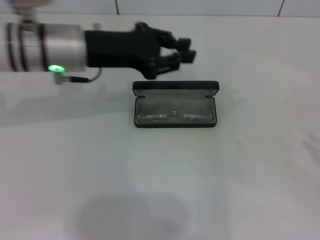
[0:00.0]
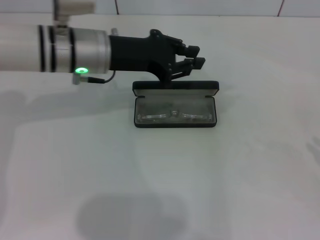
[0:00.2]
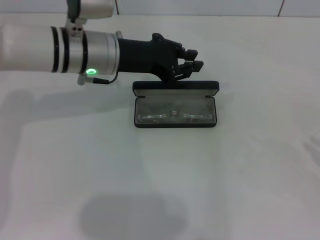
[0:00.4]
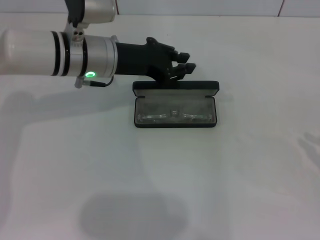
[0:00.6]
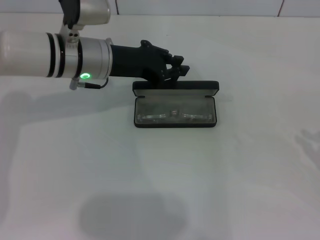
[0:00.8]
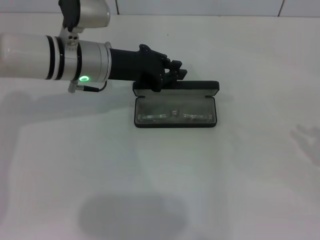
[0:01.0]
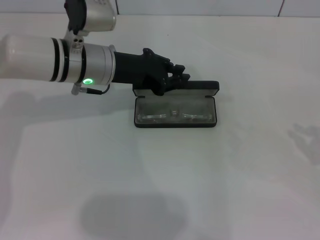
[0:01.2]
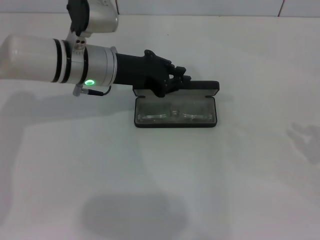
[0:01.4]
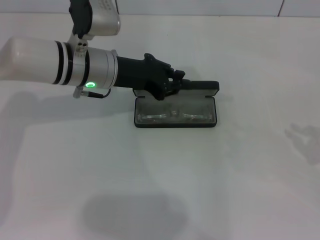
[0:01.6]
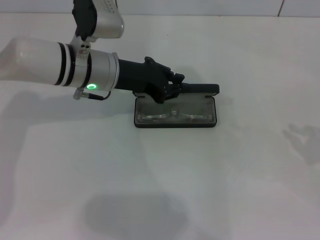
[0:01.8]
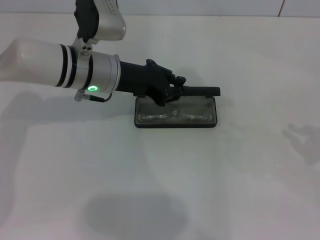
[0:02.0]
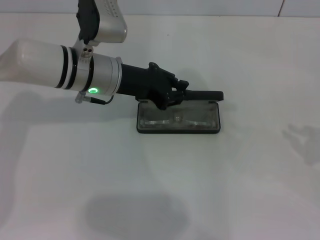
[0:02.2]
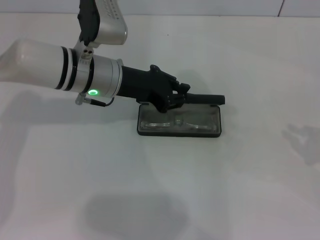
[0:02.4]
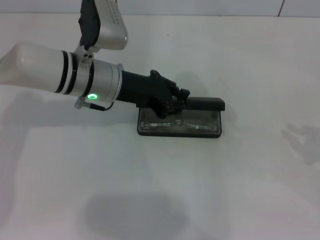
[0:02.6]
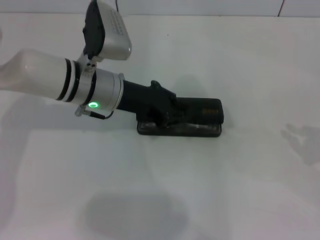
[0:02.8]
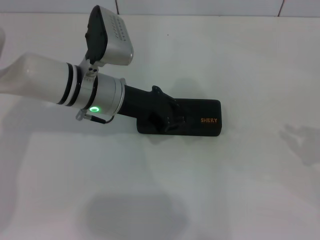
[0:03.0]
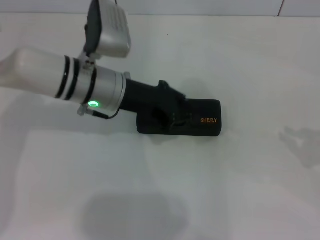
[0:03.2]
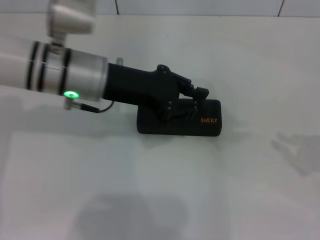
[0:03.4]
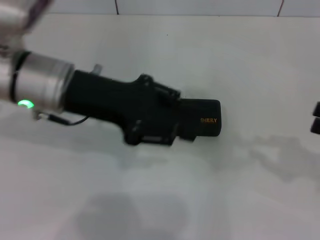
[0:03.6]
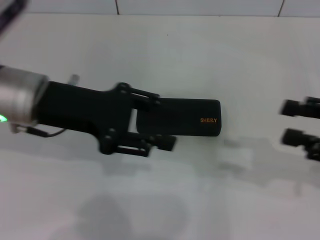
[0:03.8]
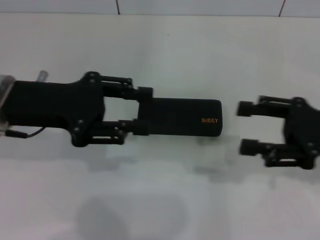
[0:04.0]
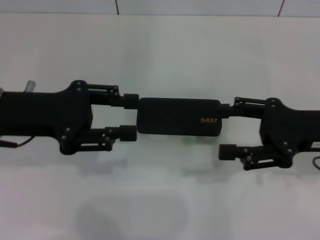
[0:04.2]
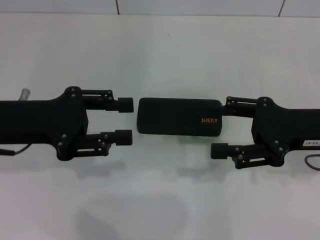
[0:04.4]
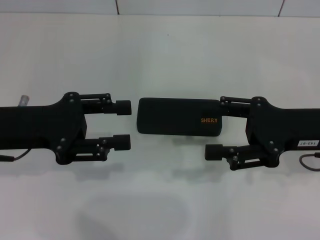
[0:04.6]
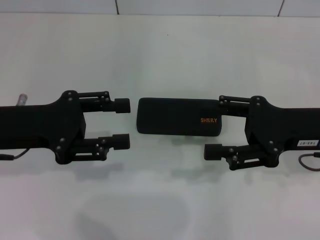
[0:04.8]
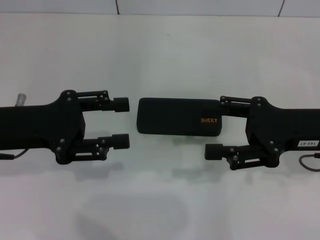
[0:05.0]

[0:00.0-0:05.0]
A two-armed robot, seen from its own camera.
Step, 0:00.0 to 0:03.0: Close the glasses case with your left hand.
0:00.0 to 0:01.6: The left gripper ends up roughly 5 cm from where it was.
0:01.6 to 0:03.4: The left gripper moves some 5 cm.
0:03.4 to 0:05.0: The right gripper heads to the left, covering roughly 15 cm, and opens. The left gripper moves to the left and backward, about 15 cm, and opens its fingers.

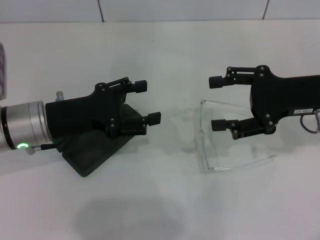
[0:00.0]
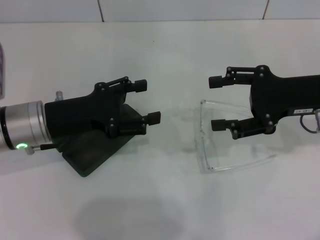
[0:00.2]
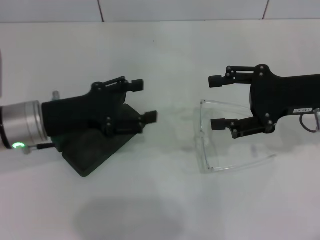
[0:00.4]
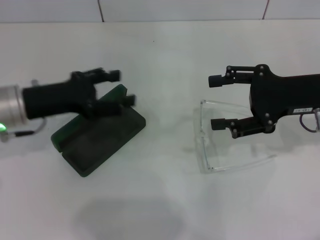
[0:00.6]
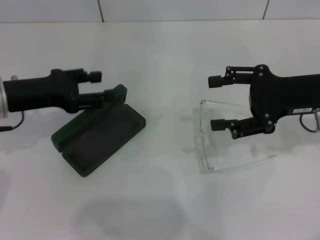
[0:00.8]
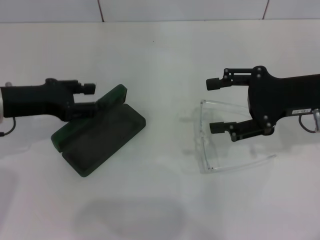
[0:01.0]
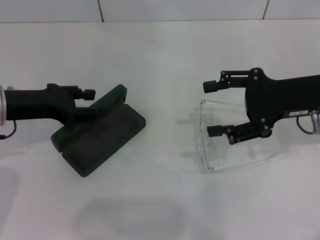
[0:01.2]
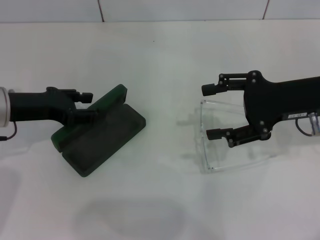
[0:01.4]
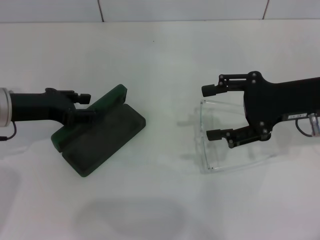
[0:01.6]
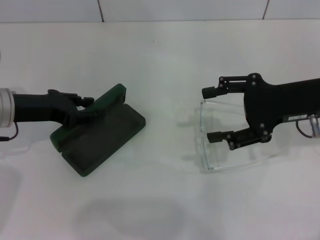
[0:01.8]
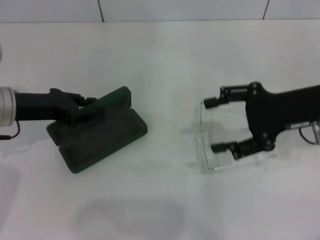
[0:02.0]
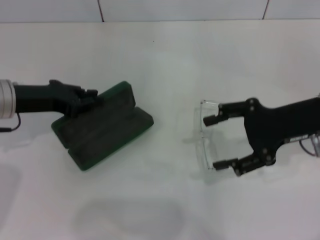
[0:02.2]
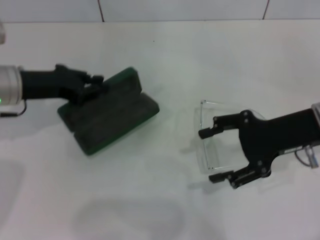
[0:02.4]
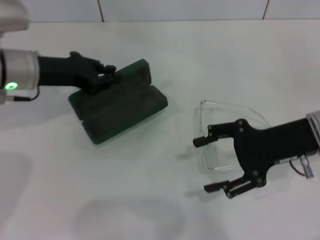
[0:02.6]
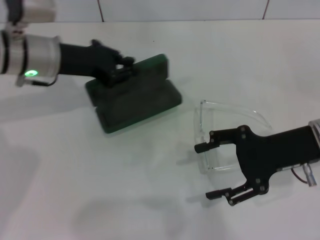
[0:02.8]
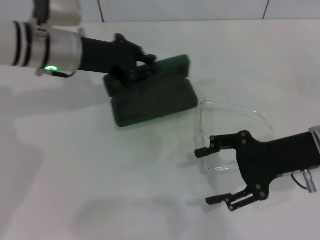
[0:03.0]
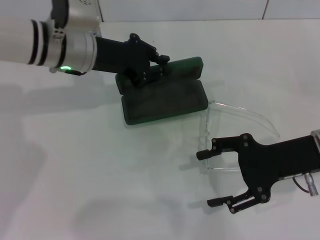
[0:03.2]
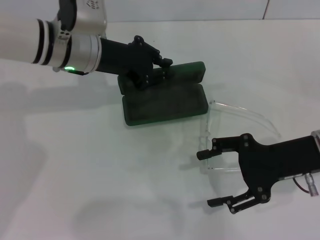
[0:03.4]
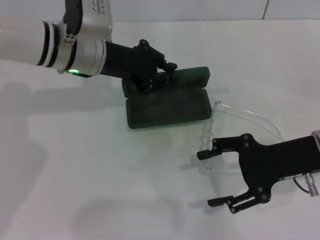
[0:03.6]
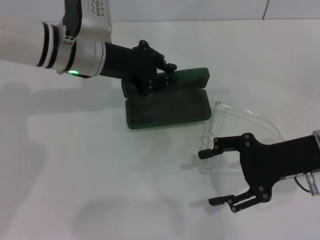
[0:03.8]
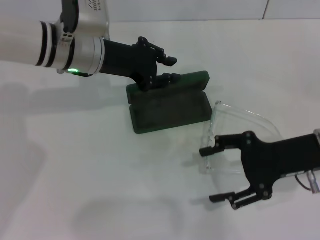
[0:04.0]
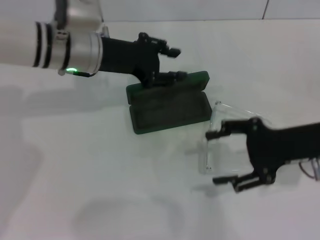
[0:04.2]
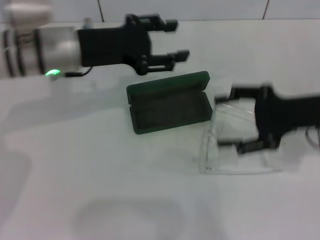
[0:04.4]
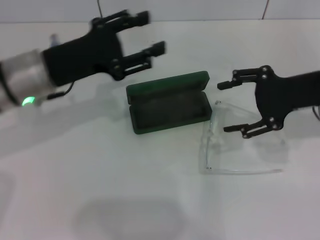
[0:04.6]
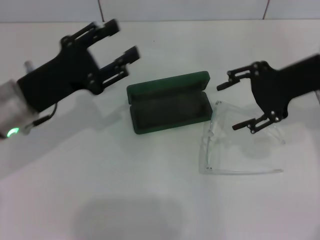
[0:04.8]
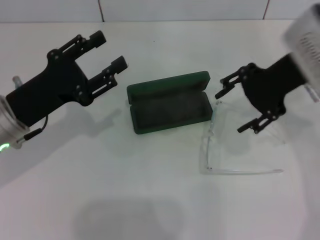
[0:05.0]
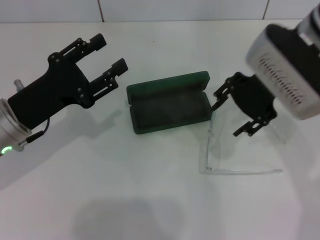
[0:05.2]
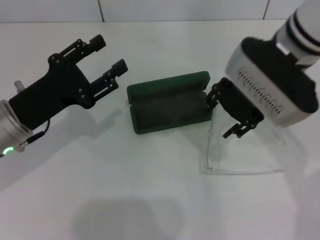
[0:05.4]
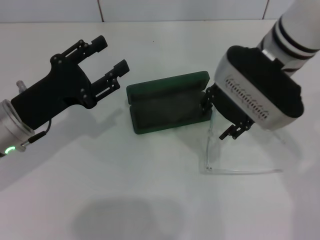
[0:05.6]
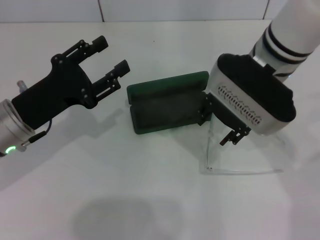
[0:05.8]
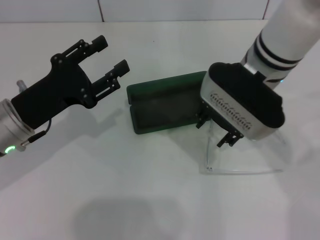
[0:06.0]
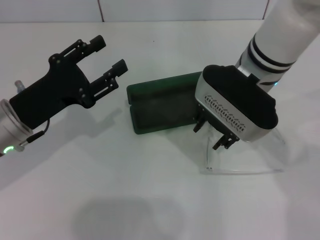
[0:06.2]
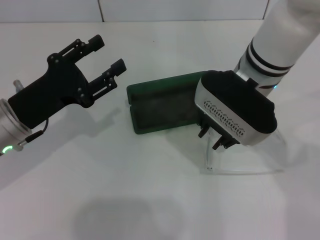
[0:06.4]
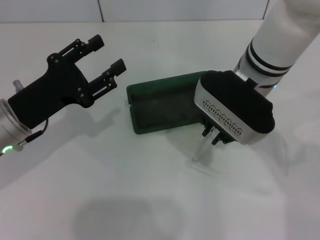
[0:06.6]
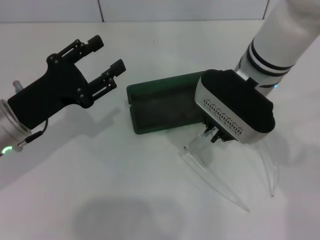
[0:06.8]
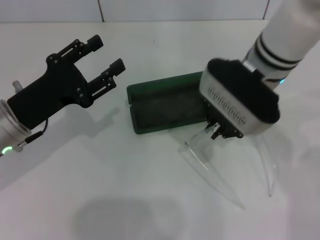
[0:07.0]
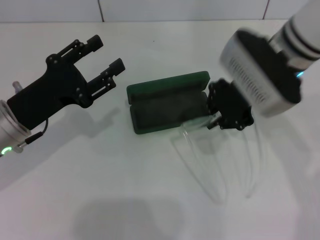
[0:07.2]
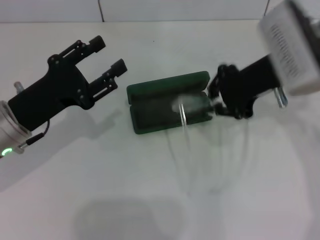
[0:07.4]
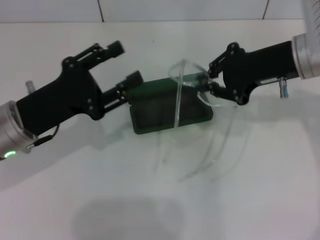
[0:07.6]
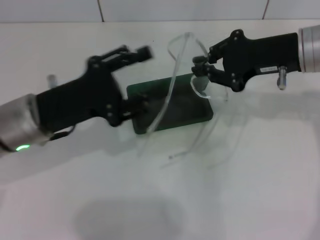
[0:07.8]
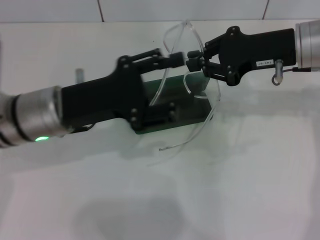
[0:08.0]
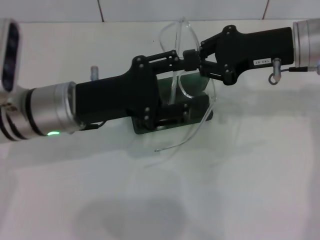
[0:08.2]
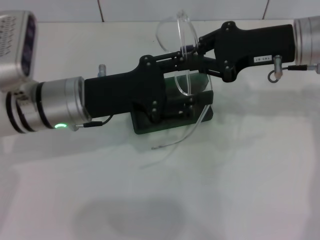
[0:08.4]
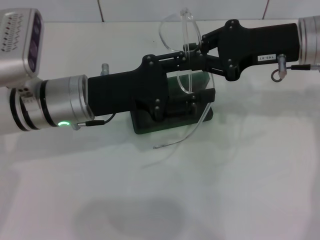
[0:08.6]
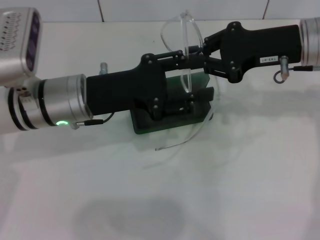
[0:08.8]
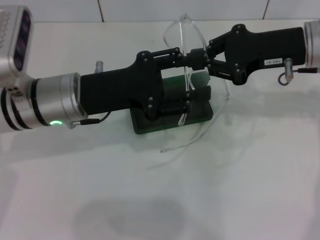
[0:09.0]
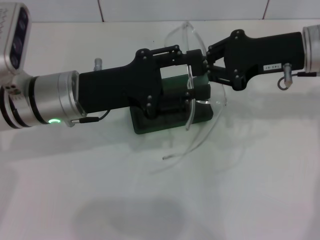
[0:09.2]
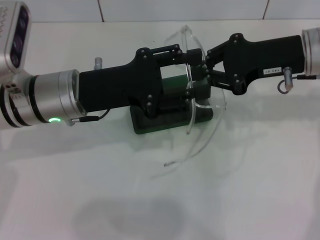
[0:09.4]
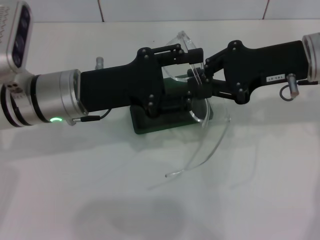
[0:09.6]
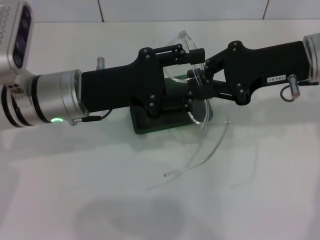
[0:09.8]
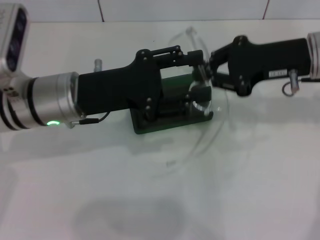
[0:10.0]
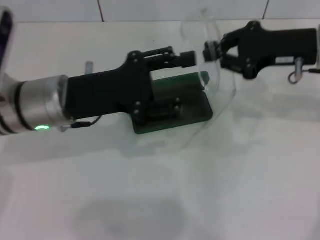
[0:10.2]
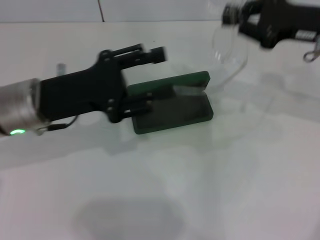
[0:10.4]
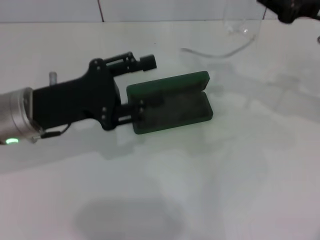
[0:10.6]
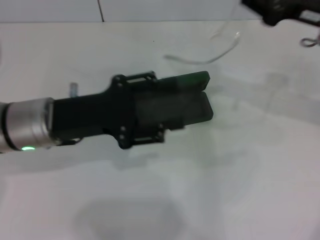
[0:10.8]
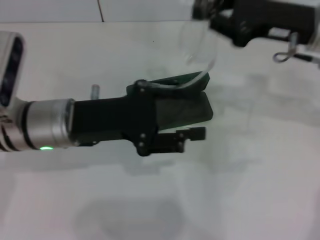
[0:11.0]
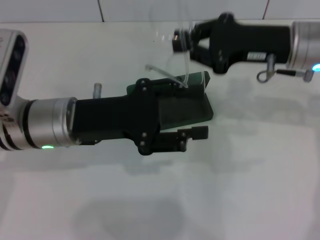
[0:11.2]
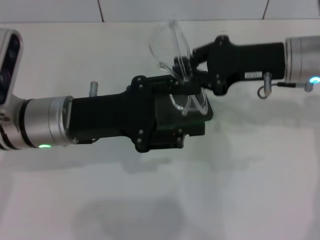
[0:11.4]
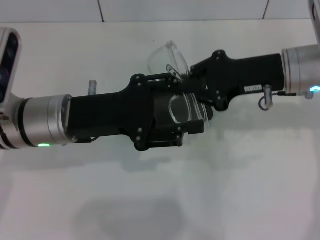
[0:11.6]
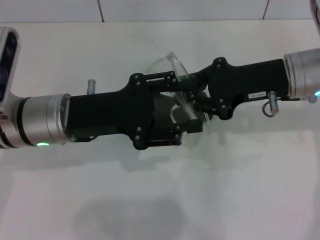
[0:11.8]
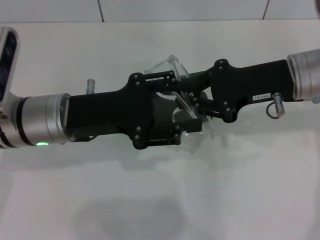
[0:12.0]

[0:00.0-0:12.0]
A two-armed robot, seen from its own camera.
Step, 0:00.0 to 0:02.0: Grab the glasses case with your left hand.
Step, 0:02.2 to 0:03.8: Place the glasses case in the center of the table with your left hand.
Step, 0:04.2 to 0:06.6: Grab the eyeglass frame with your right hand.
0:00.0 to 0:01.6: The left gripper is displaced to the left by approximately 5 cm.
0:01.6 to 0:03.0: The left gripper moves to the right and forward, about 10 cm, and closes. The right gripper ends up some 5 cm from where it was.
0:03.0 to 0:04.4: The left gripper opens up.
0:04.4 to 0:06.0: The left gripper is displaced backward, downward and to the left by some 15 cm. Meanwhile the right gripper travels to the left by approximately 15 cm.
0:06.0 to 0:07.6: The right gripper shifts about 10 cm to the right, and closes.
0:07.6 to 0:09.0: The left gripper heads to the right, covering roughly 5 cm.
0:10.4 to 0:12.0: The right gripper shifts approximately 5 cm to the left.

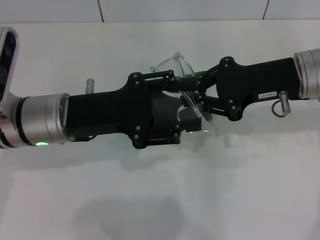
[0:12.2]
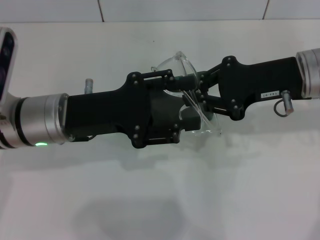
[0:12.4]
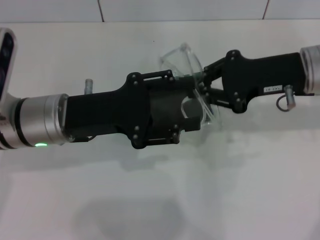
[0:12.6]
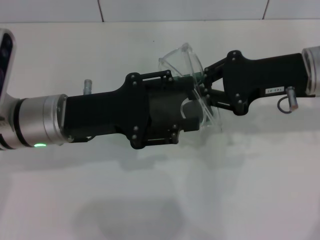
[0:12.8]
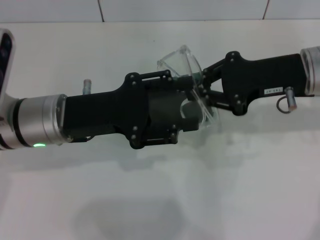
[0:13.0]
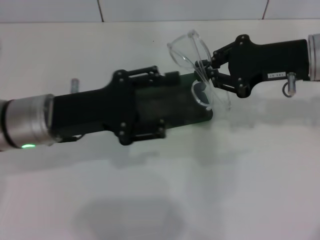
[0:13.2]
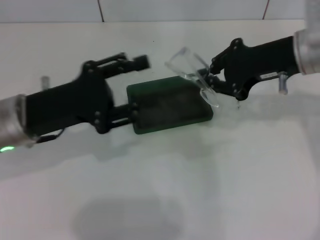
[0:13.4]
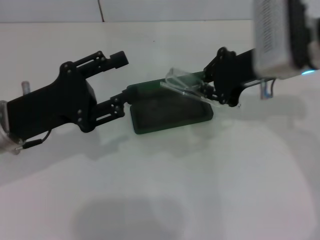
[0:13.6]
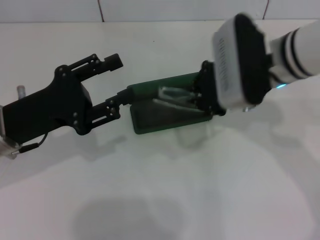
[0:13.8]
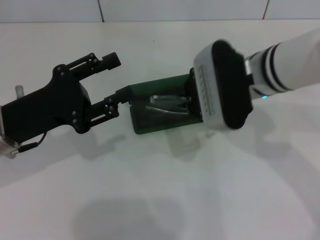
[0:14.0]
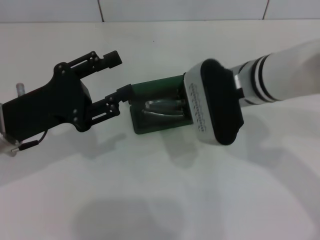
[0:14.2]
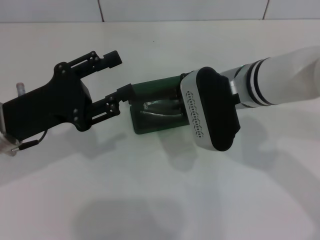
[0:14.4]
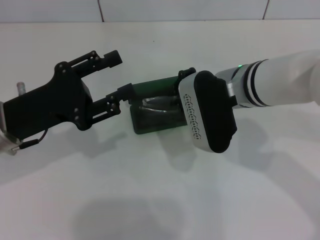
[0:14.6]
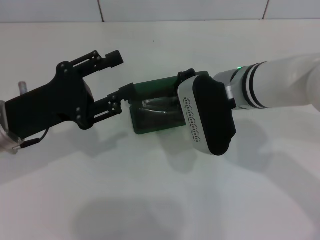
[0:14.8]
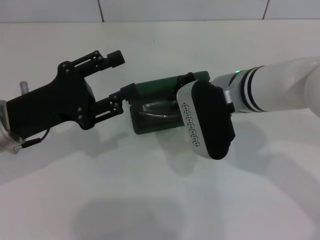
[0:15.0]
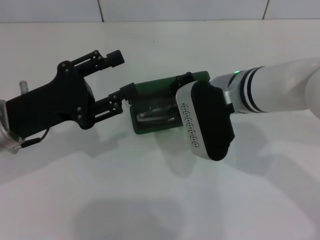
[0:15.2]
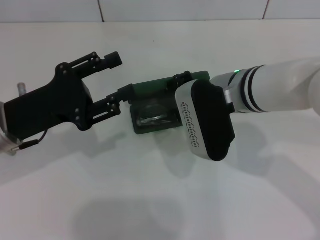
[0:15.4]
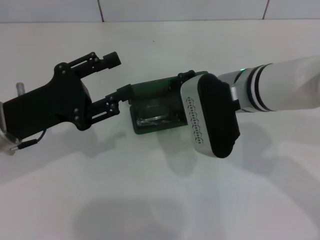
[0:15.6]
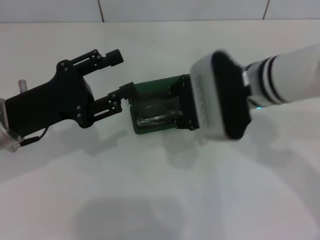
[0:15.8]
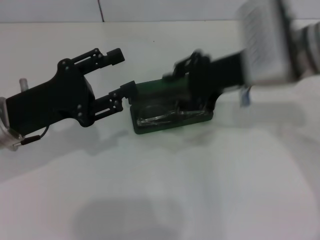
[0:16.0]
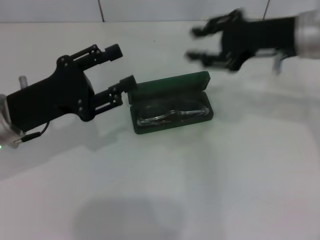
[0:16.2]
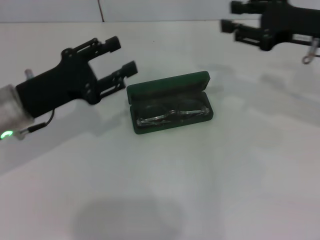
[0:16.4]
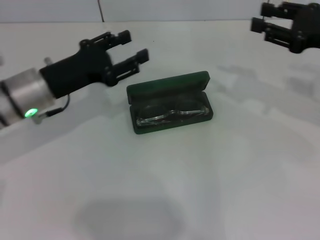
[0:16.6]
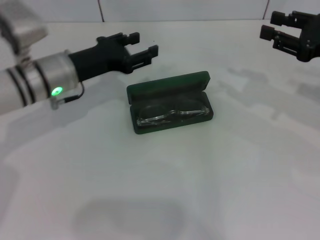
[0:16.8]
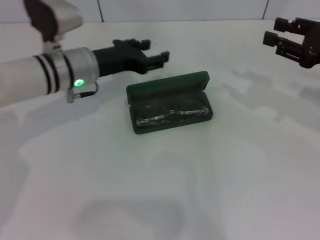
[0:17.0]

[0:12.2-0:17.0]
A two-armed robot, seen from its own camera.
Step, 0:13.0 to 0:15.2: Put the glasses into the case with your right hand.
0:12.2 to 0:13.8: The grippers both shift to the left by approximately 5 cm.
0:13.8 to 0:15.4: The right gripper ends up some 5 cm from where it was.
0:15.4 to 0:17.0: The left gripper goes some 15 cm forward and to the right. Meanwhile the right gripper shifts about 20 cm to the right.
